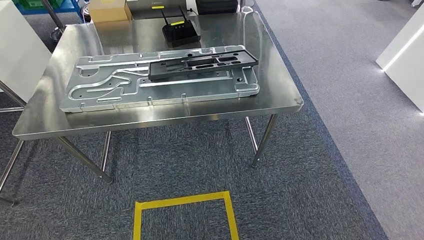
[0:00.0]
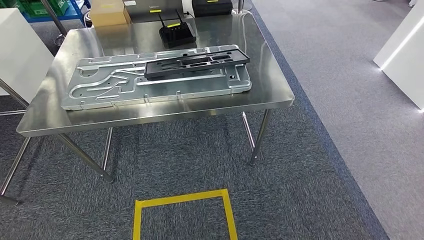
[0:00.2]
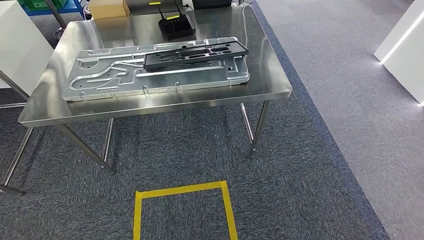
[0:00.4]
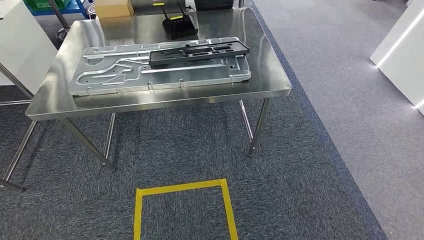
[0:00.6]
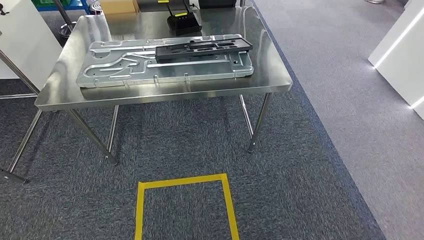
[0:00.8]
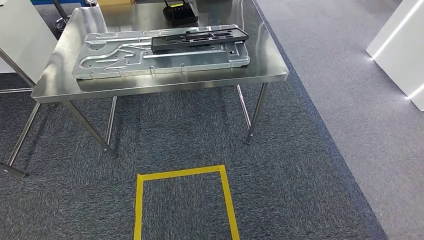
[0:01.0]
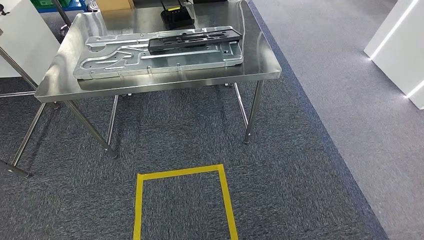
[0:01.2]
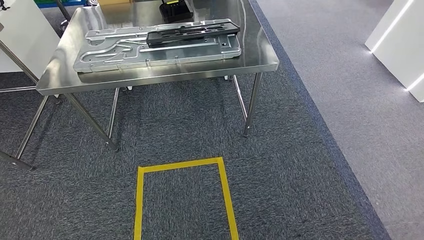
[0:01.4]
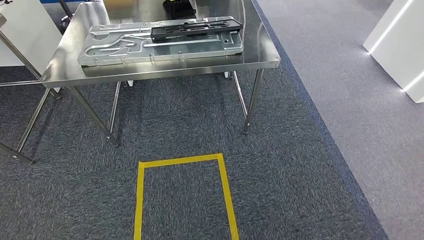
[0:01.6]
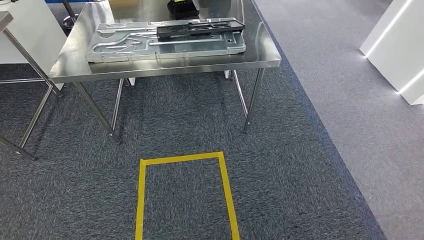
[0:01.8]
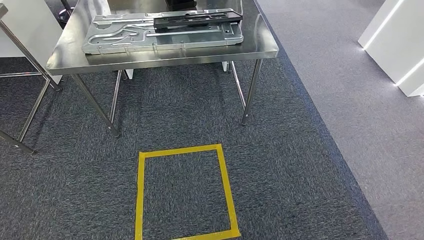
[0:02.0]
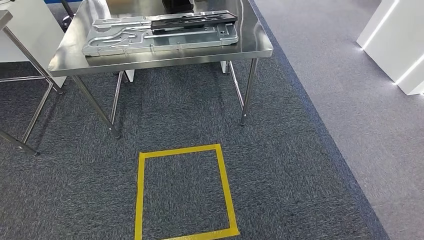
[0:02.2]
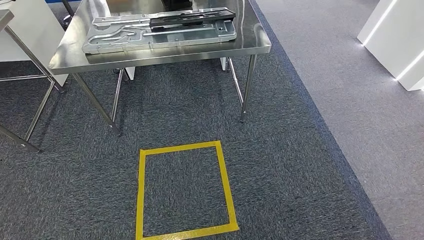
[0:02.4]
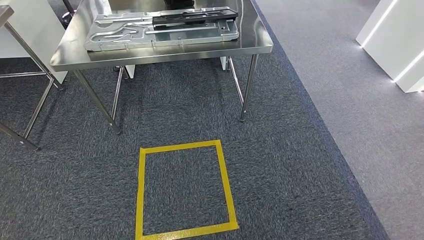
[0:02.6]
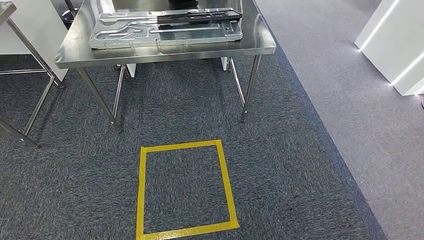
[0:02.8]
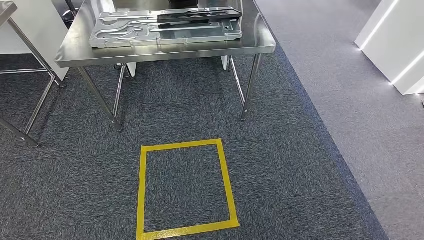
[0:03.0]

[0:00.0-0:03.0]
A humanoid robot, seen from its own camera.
Step, 0:00.0 to 0:02.8: Return to the initial position at the shelf.
0:01.6 to 0:03.0: The hands stay close to where they were, moving slightly.

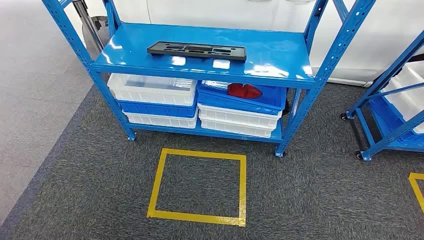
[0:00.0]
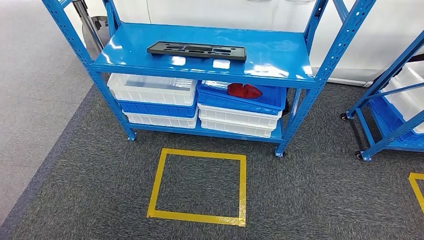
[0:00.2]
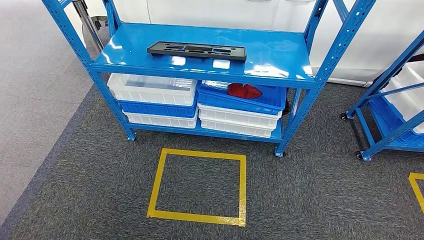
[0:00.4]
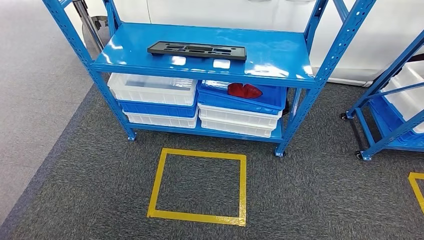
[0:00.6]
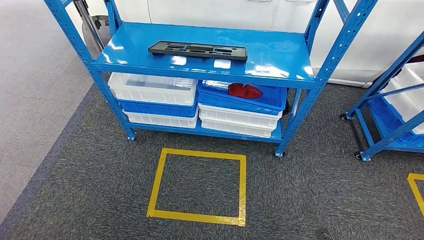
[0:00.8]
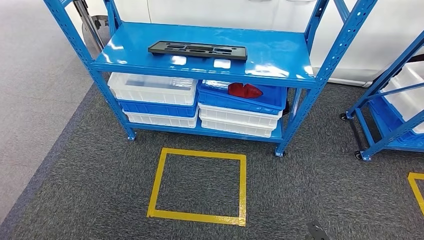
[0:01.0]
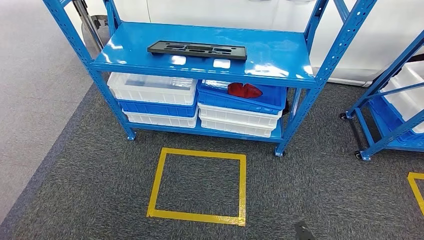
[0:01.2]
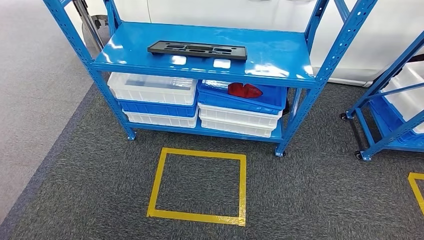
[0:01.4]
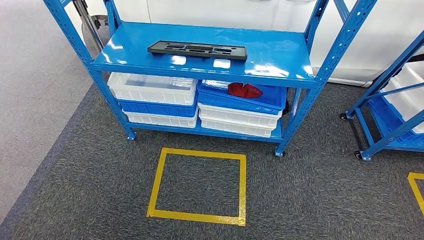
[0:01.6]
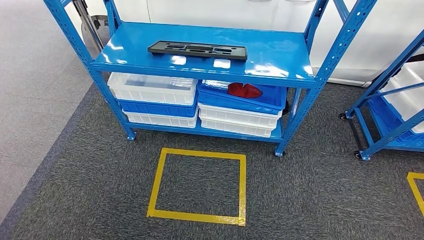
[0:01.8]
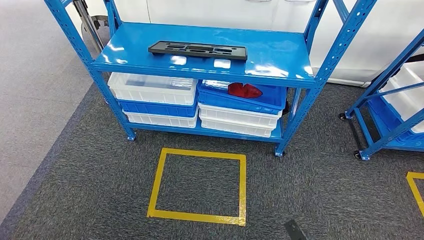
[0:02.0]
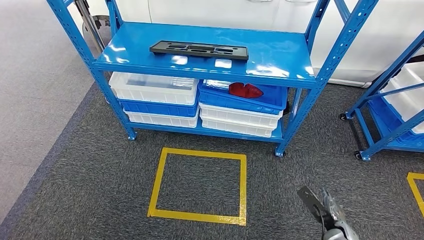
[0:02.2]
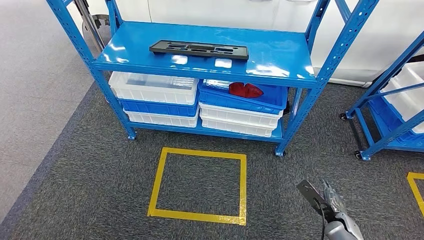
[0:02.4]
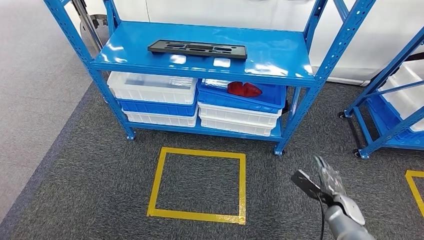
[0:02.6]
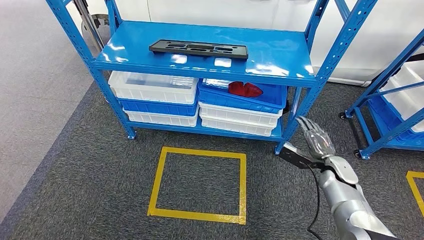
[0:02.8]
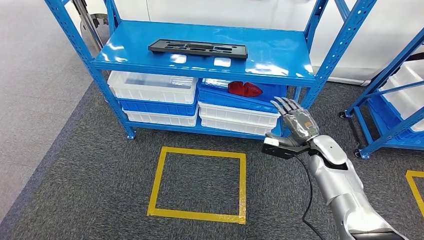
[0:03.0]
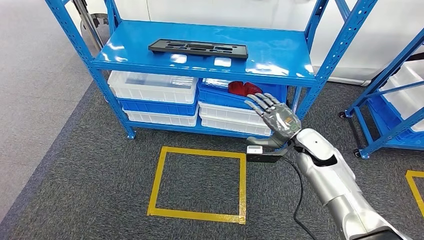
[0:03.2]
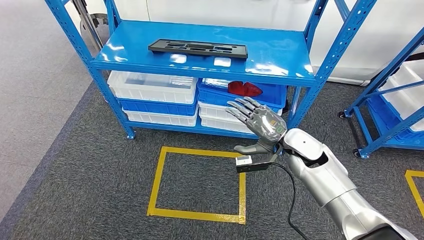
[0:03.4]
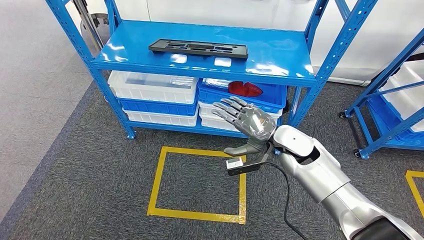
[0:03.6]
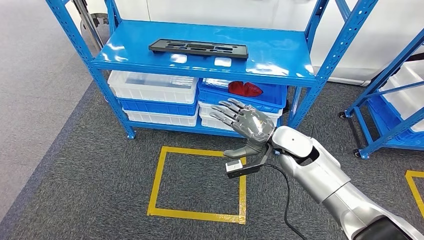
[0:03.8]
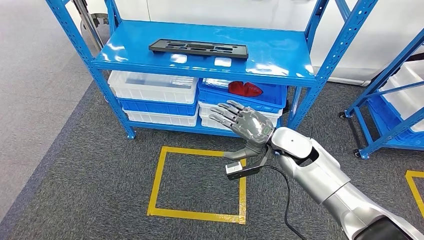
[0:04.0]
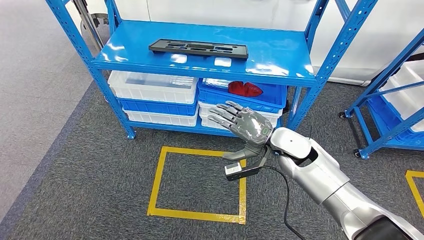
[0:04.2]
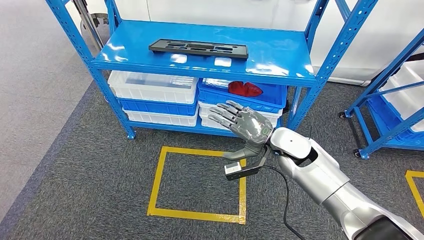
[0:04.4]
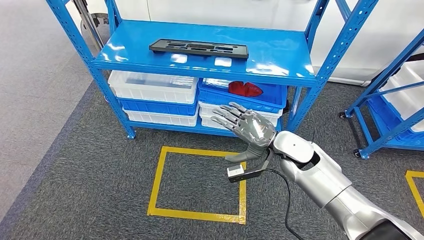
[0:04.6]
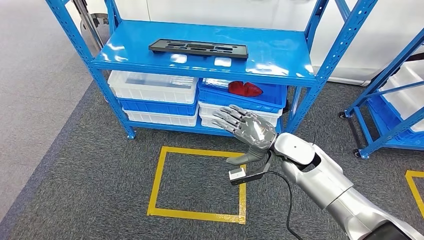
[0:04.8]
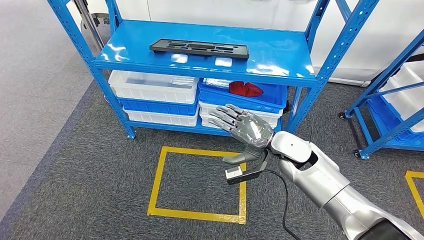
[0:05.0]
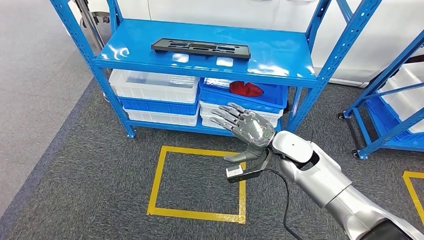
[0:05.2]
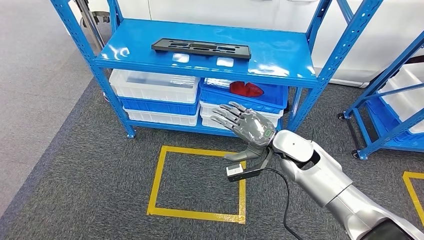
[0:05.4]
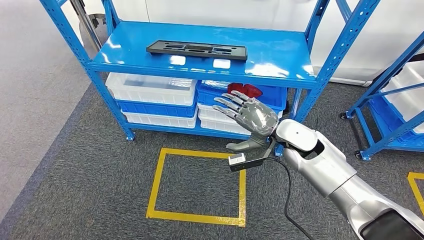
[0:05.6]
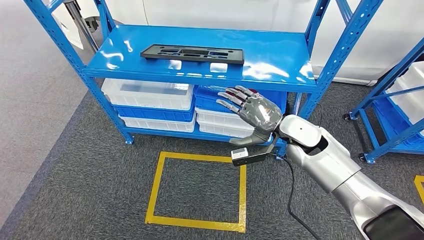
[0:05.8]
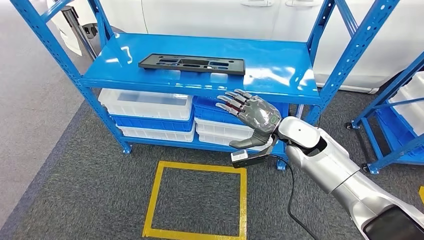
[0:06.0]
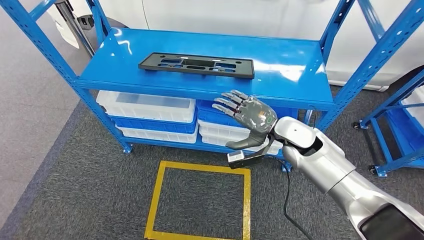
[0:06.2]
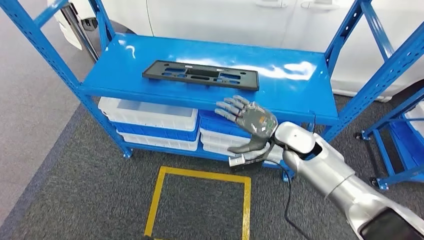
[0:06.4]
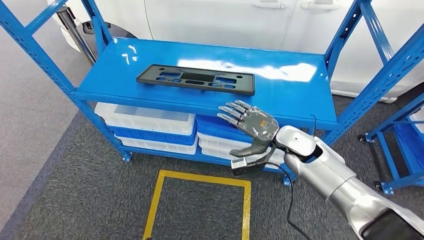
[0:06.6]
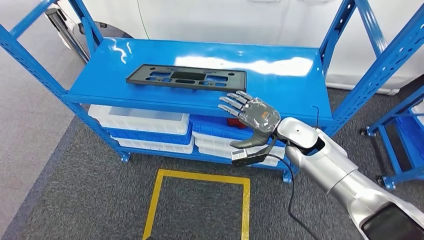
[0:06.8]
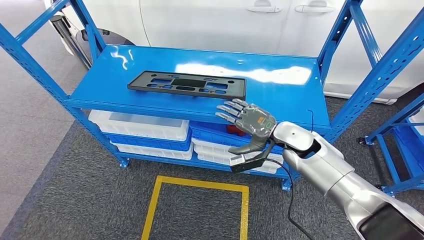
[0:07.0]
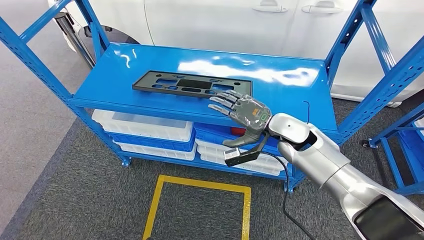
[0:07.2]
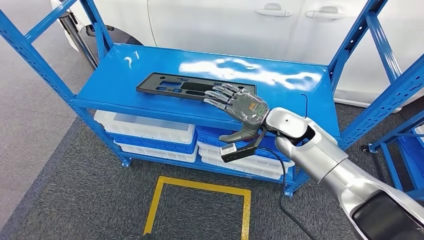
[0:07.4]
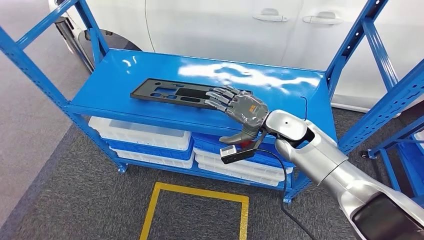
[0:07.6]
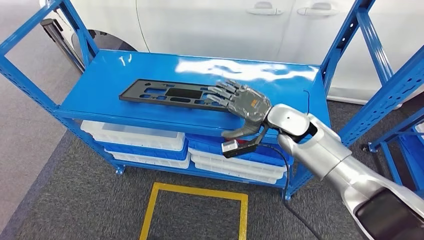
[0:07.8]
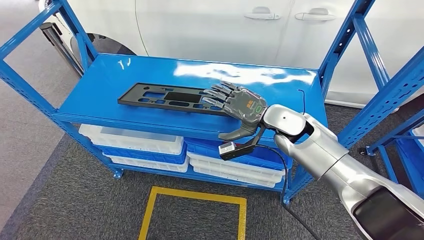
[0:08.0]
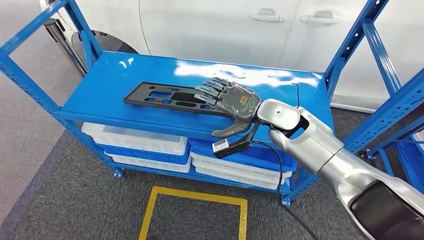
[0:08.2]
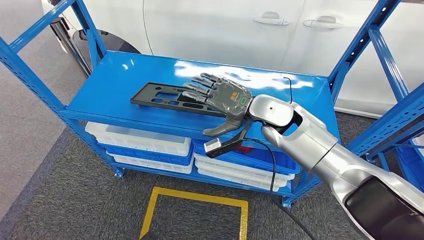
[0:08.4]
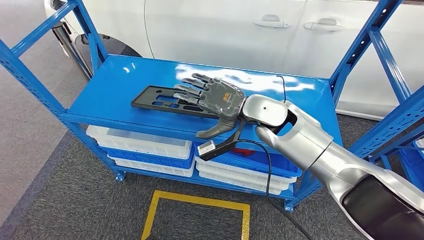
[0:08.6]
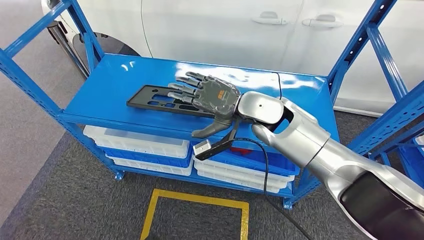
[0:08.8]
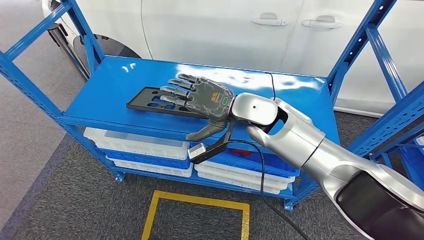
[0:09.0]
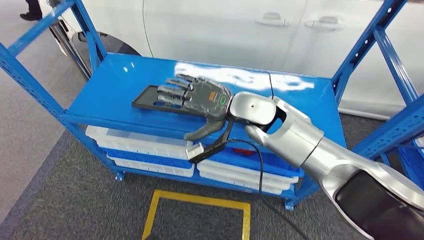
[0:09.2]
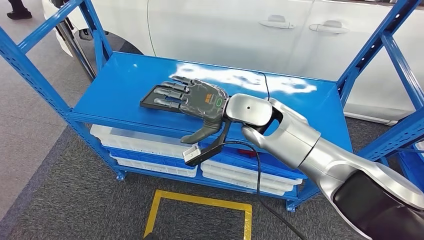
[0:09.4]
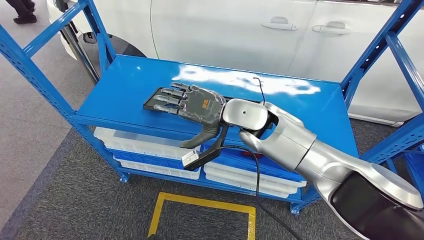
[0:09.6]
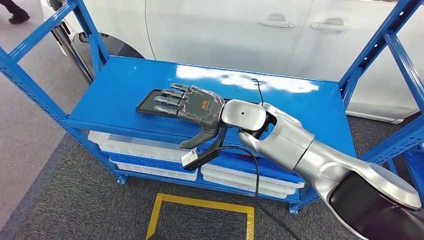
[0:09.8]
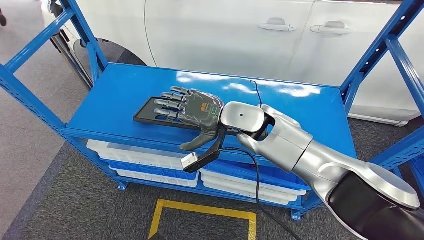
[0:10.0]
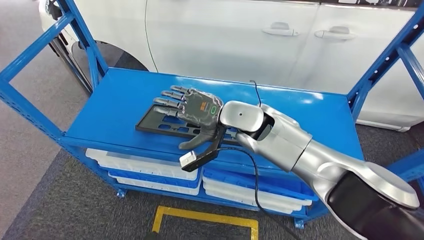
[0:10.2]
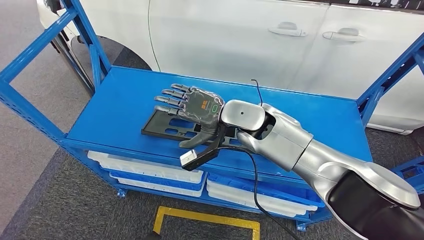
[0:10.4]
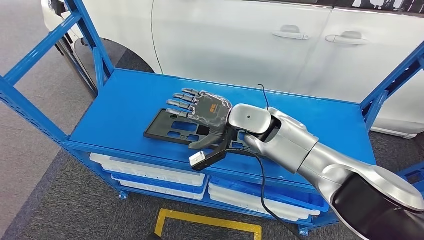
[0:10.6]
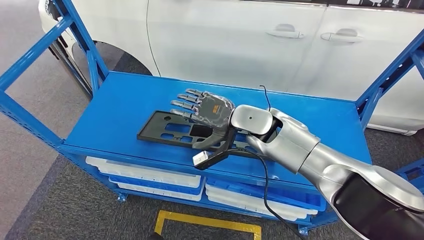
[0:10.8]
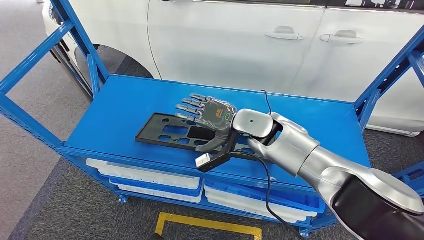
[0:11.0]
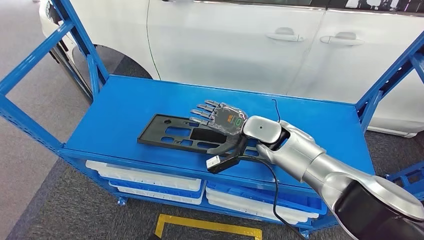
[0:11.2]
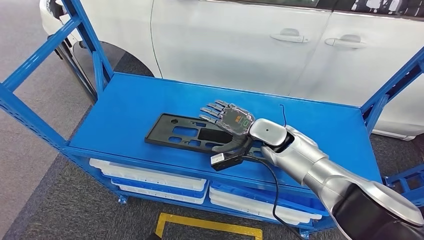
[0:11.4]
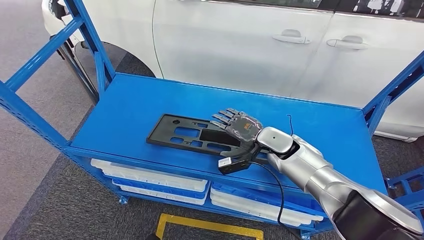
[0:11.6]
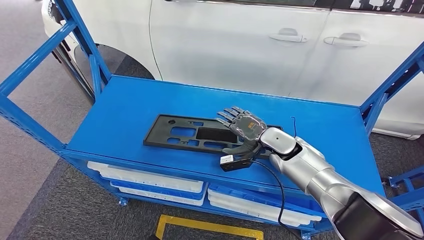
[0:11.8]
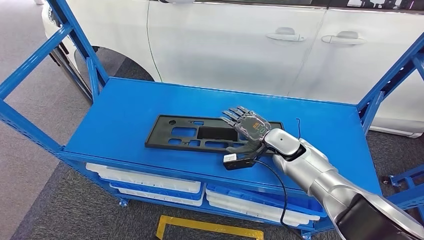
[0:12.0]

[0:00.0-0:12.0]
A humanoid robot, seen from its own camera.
0:01.6 to 0:03.0: The right hand heads forward and upward, covering about 40 cm.
0:03.0 to 0:04.4: The right hand moves to the left and upward, some 15 cm.

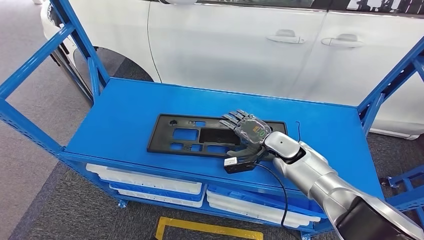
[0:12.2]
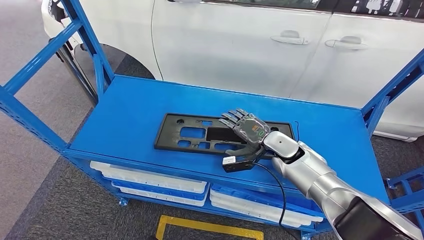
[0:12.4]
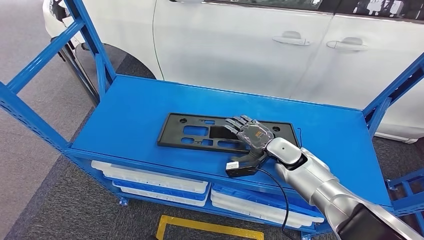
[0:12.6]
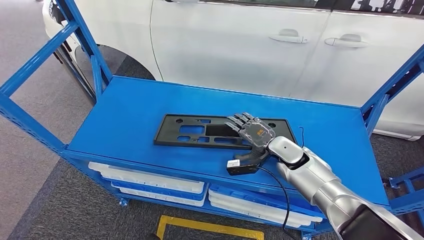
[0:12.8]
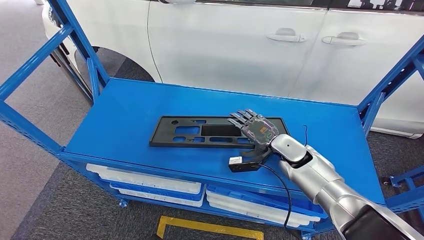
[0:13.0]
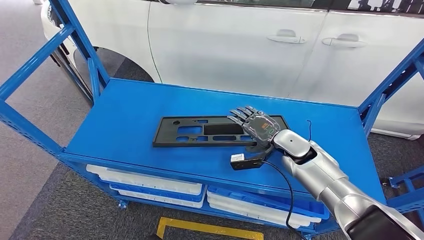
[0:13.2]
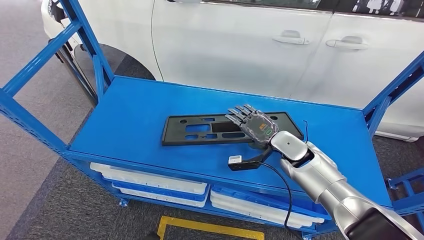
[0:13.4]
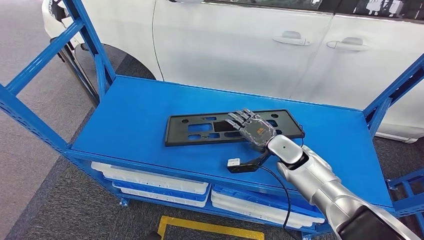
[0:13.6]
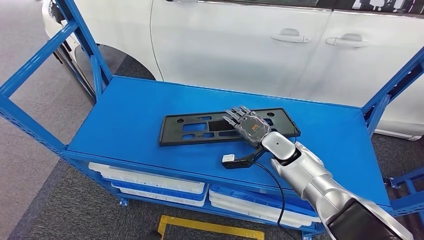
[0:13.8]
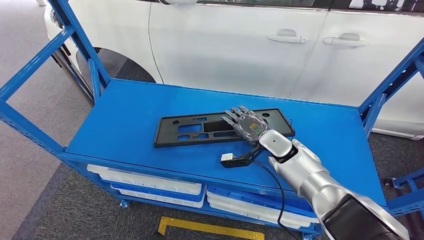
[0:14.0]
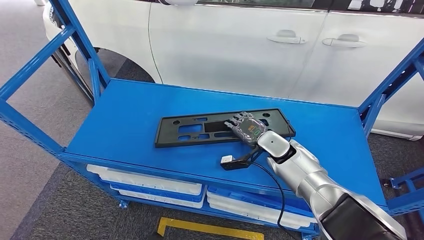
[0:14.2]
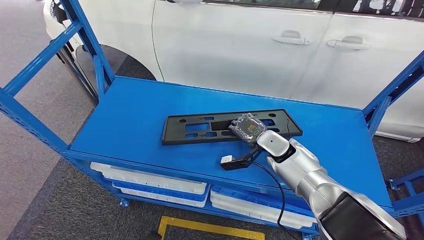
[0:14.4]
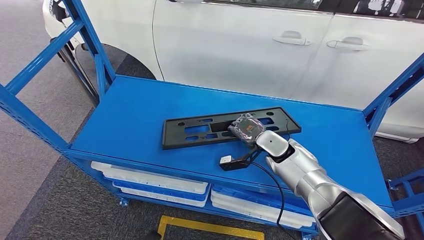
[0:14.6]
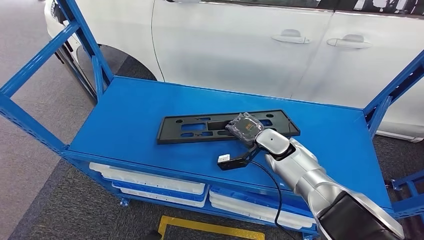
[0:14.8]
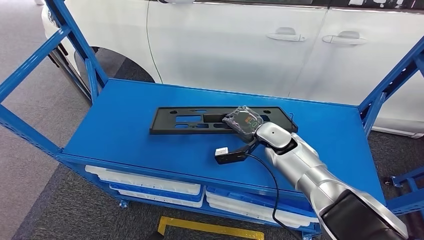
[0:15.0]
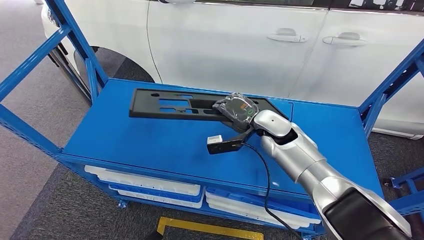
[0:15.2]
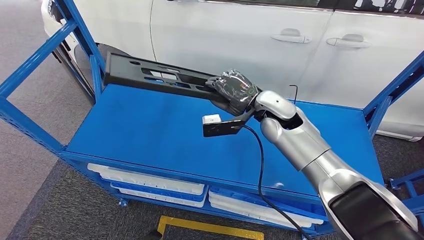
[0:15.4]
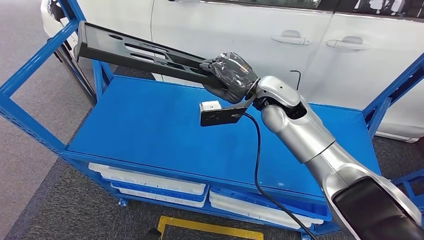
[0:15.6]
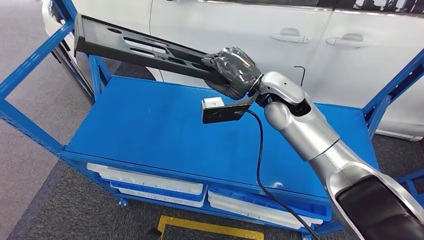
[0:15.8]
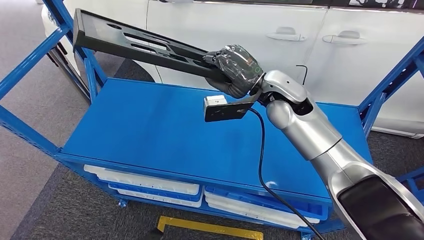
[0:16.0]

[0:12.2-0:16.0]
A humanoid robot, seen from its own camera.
0:12.2 to 0:14.8: The hands make only small movements.
